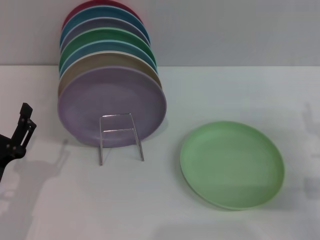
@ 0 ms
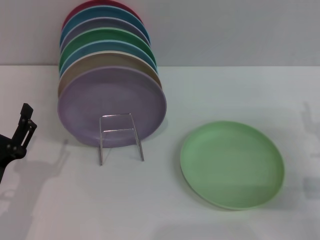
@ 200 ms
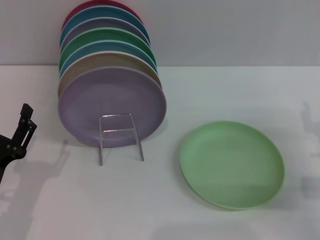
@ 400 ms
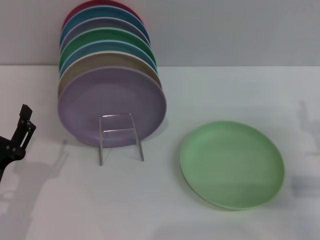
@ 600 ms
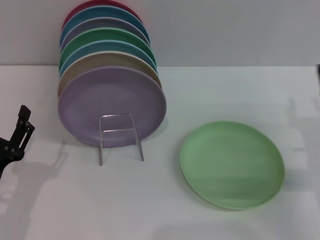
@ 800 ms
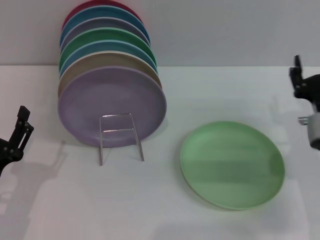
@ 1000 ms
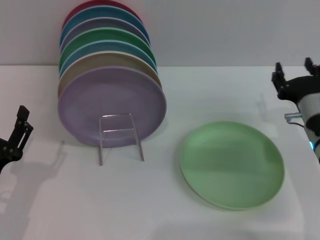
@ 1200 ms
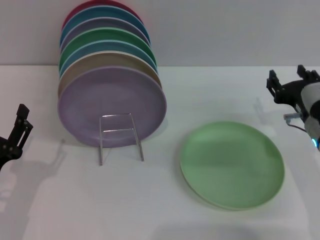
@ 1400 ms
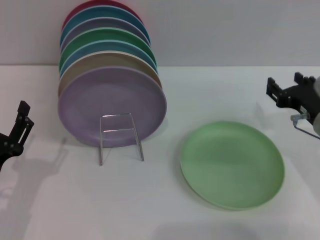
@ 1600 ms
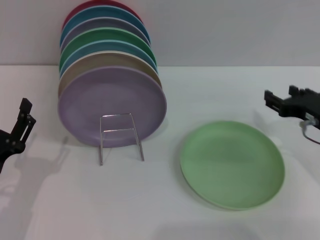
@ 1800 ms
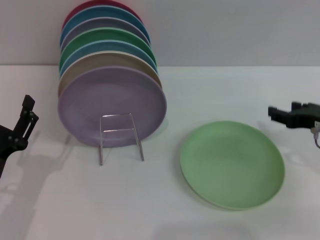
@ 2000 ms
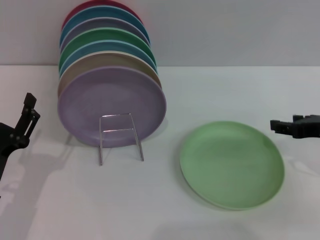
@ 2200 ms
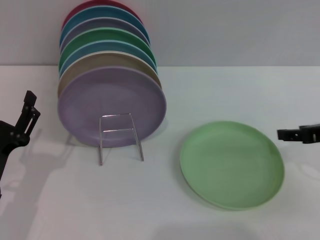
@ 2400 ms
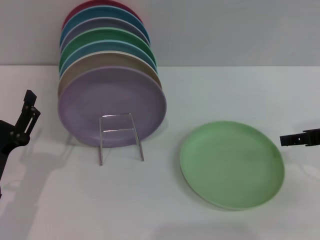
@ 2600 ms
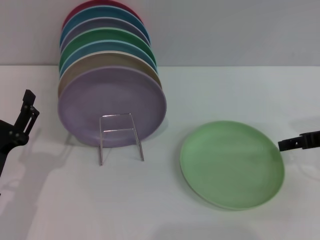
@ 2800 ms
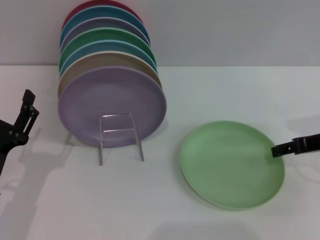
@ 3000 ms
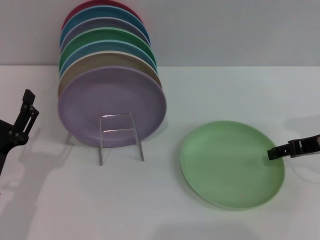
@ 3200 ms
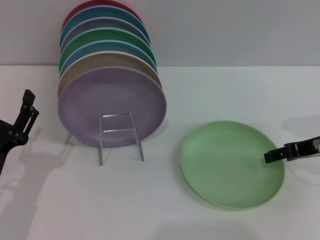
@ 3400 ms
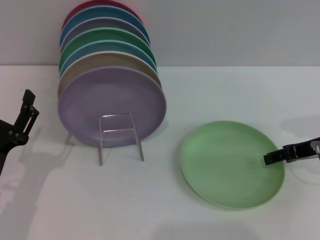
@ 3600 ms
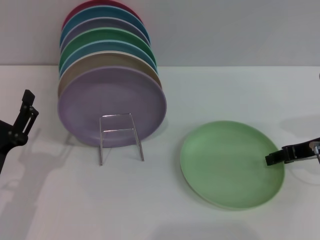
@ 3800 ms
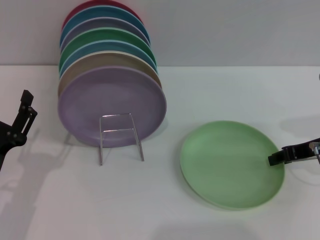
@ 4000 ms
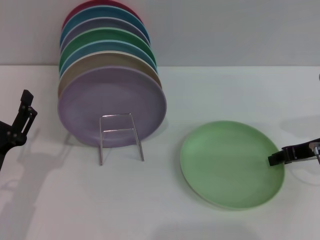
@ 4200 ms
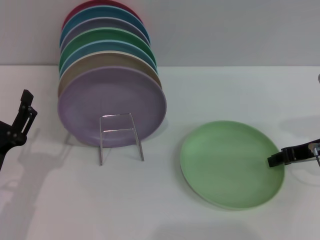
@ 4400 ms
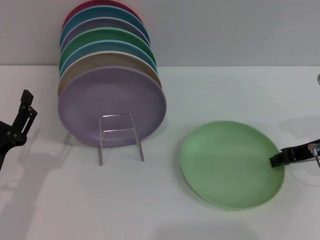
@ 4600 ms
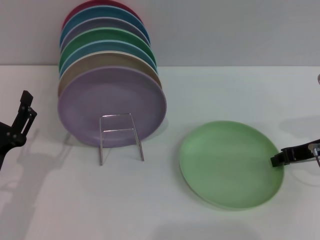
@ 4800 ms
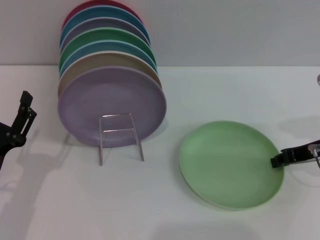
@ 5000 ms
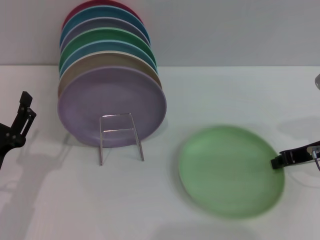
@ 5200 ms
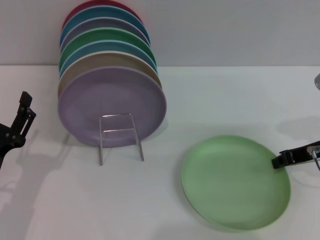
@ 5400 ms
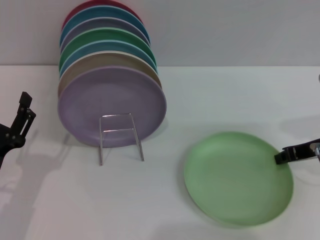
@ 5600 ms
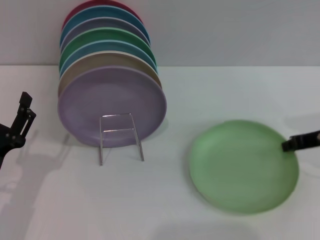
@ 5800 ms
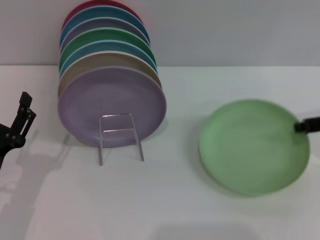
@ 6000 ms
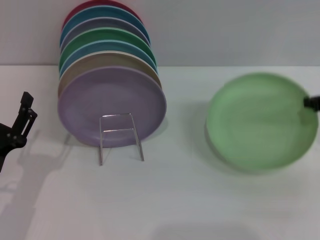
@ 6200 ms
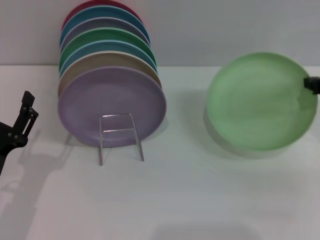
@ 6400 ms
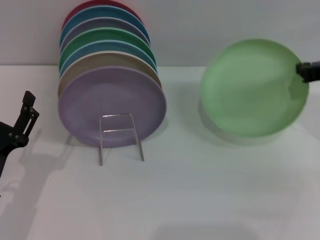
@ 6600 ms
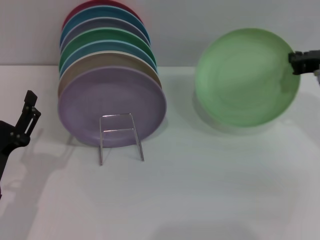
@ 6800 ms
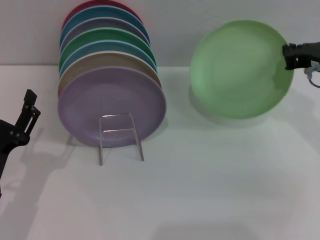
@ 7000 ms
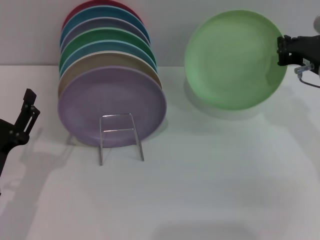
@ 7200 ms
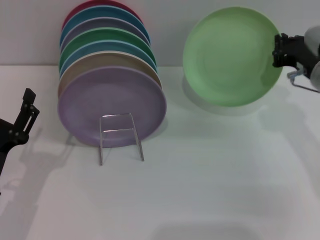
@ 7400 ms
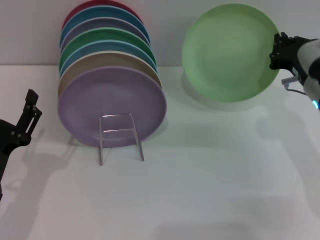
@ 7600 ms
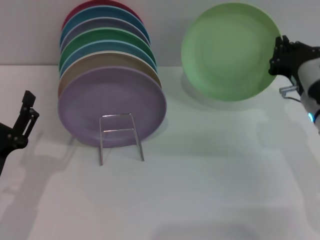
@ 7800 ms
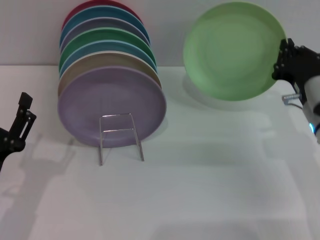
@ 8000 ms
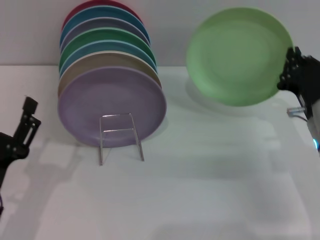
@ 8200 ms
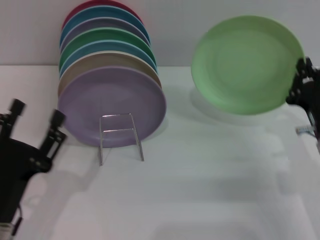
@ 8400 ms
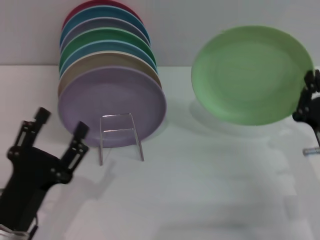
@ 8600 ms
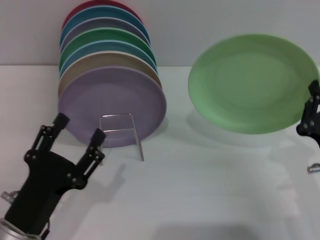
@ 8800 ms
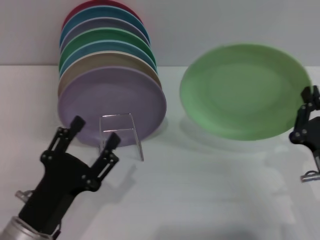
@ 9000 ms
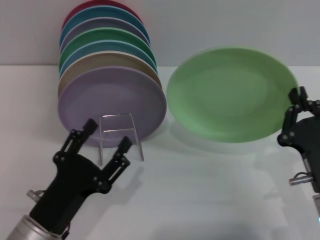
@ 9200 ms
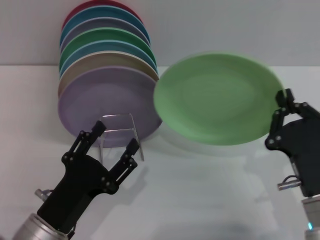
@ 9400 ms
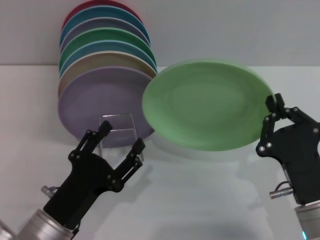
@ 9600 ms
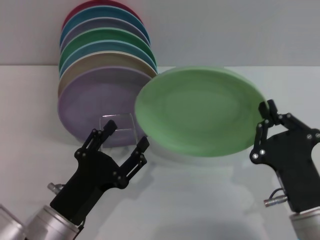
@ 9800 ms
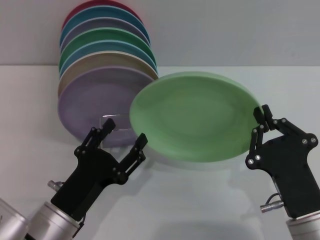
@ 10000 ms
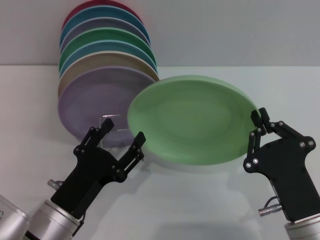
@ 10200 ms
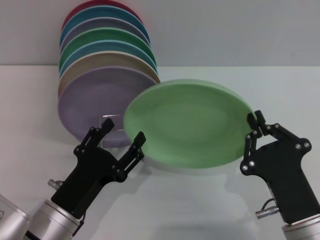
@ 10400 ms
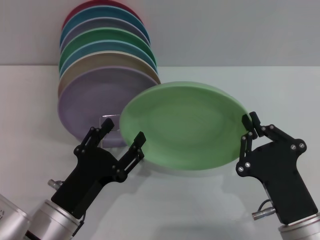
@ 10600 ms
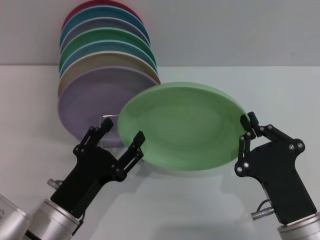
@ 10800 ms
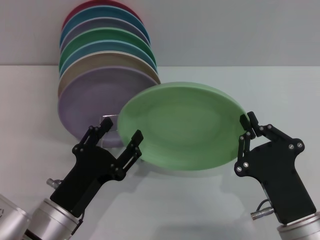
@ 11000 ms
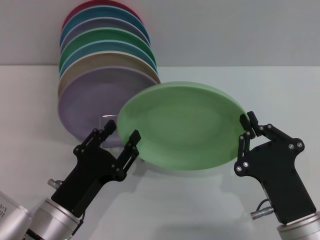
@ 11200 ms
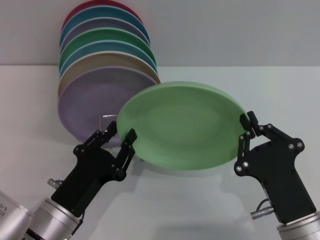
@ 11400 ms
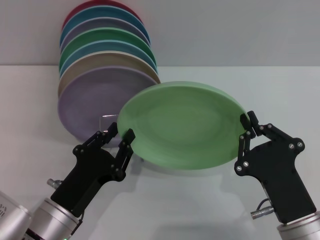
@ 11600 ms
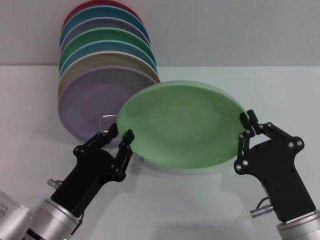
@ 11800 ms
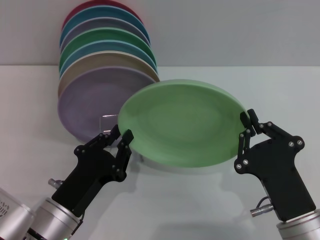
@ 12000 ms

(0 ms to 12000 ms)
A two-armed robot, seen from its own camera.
Task of the whole recording: Grip the plate with one hand, pass it to the other, then set it on the shelf.
Step, 0 ms - 7800 ms: Pick up the plate with the right gripper.
0 ms - 1600 ms: The right gripper is displaced to the left by about 5 cm.
1600 ms - 3000 ms: The right gripper shifts by roughly 5 cm.
3000 ms - 4400 ms: The right gripper closes its fingers.
4400 ms - 6000 ms: The right gripper closes its fingers.
6000 ms - 7600 ms: The right gripper is displaced to the left by some 5 cm.
7600 ms - 9000 ms: The left gripper moves to the right, roughly 5 cm; the right gripper is displaced backward and downward by roughly 15 cm.
9000 ms - 10400 ms: The right gripper travels to the left by approximately 5 cm.
10400 ms - 12000 ms: The left gripper closes up.

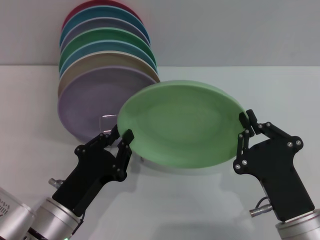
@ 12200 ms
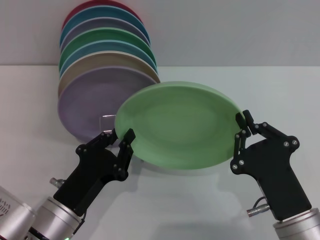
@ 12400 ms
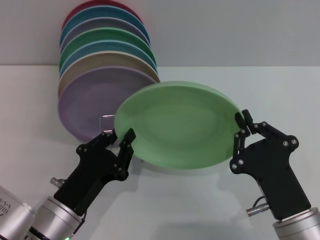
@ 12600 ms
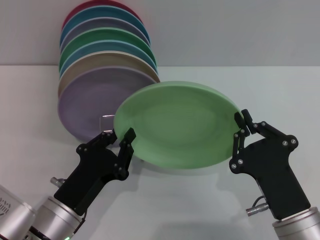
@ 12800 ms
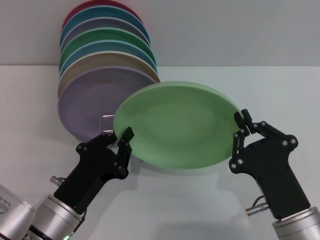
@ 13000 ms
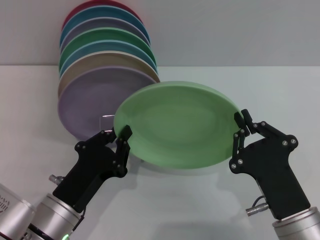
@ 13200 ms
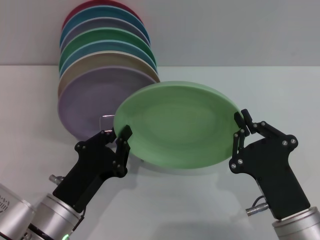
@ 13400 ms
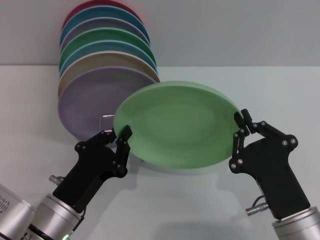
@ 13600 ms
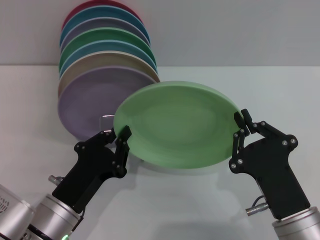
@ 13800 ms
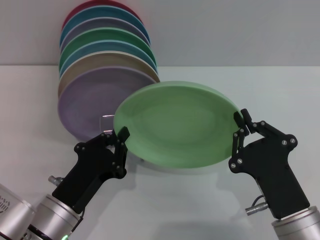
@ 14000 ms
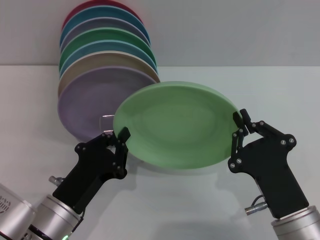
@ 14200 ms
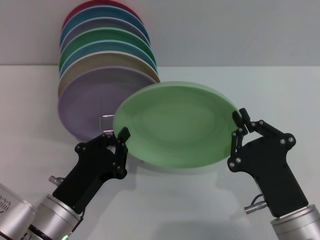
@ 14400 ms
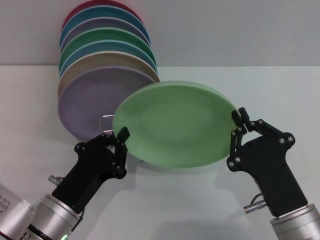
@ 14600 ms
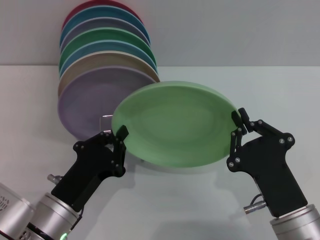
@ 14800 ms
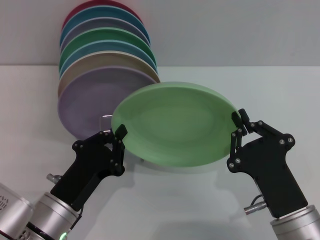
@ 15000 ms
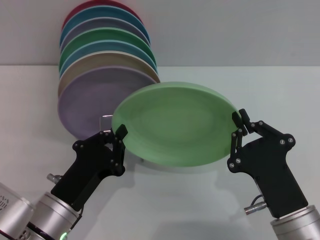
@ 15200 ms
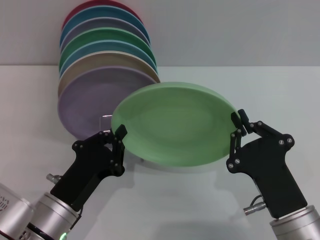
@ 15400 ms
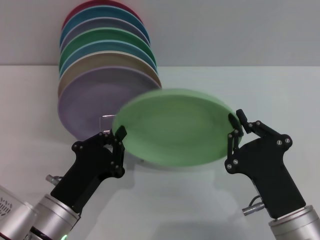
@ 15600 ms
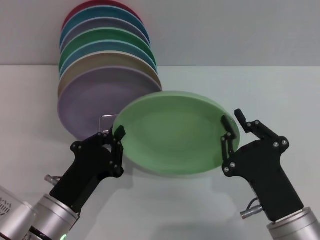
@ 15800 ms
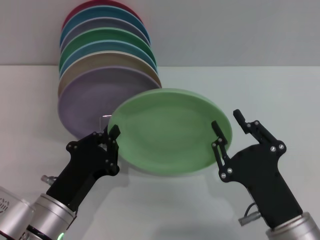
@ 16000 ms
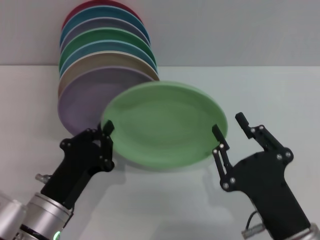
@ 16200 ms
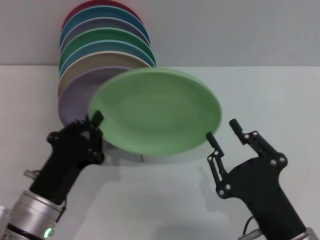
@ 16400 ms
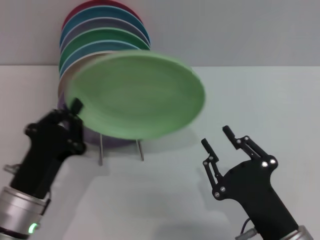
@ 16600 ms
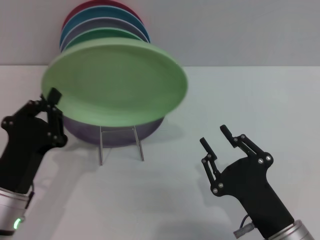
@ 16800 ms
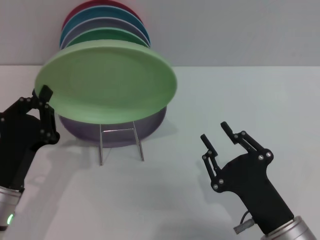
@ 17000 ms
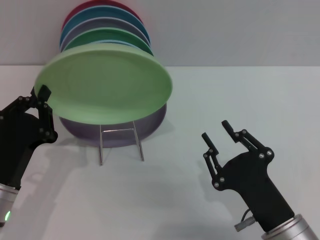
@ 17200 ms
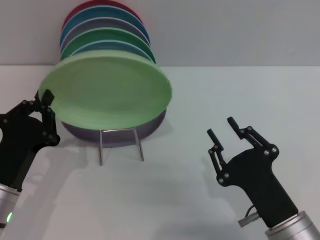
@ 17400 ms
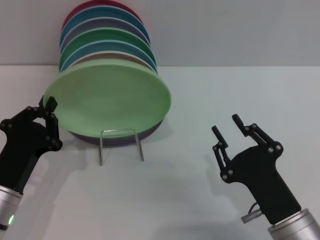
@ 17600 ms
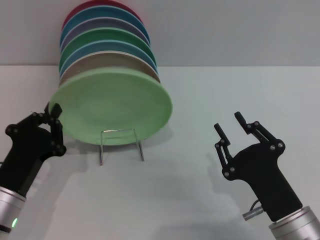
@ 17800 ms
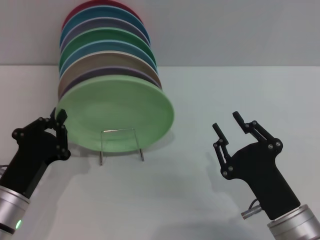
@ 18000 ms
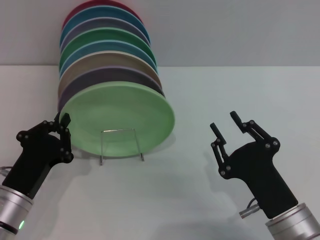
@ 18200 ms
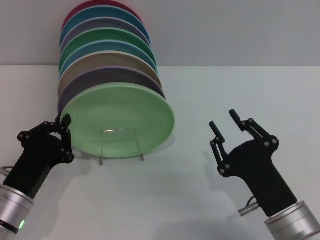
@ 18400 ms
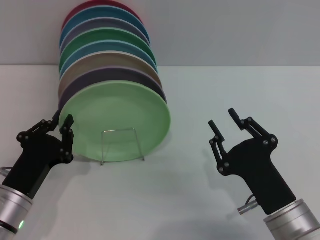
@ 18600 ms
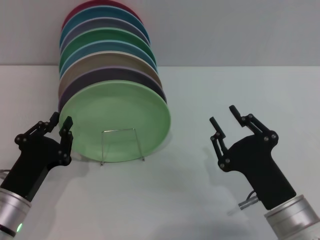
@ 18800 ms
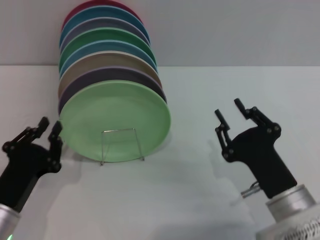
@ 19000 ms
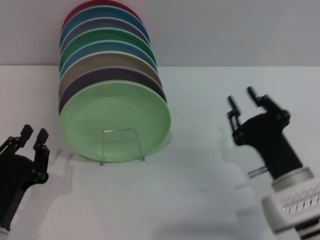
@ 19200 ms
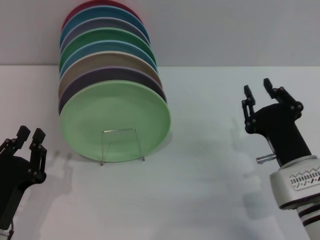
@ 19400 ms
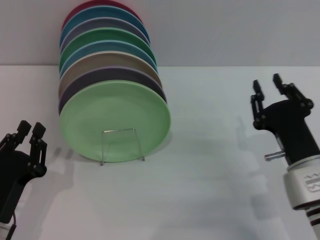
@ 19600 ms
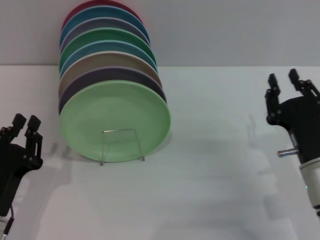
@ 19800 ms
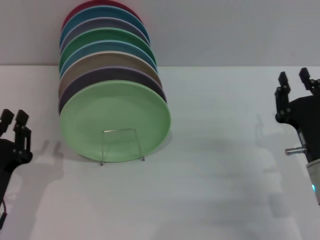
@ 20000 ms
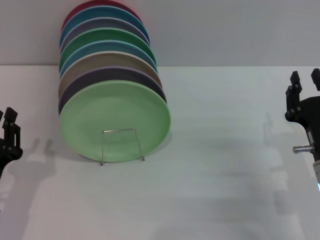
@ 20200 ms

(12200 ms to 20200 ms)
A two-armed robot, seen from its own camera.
Task of the whole recording: Grip the plate with one hand, pass it to the other, then set it on the shelf.
Step, 12200 ms - 16200 ms: Pass the plate from the right gripper to the left gripper.
Step, 16400 ms - 19000 ms: Place the plate on the shelf with the left gripper.
12200 ms - 15400 ms: The two grippers keep their place.
15400 ms - 17000 ms: The right gripper opens up. Meanwhile the left gripper travels to the left by roughly 5 cm.
18600 ms - 20200 ms: The right gripper shifts some 10 cm to the right and forward.
